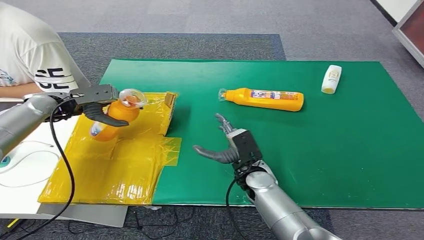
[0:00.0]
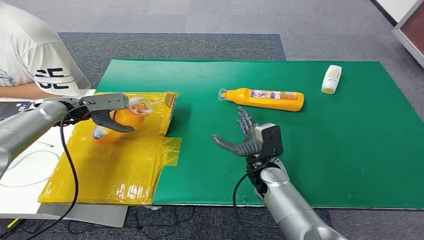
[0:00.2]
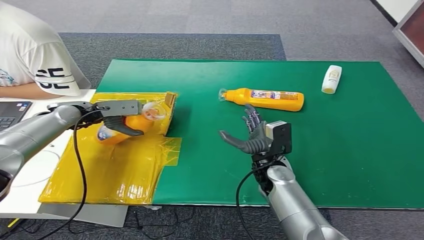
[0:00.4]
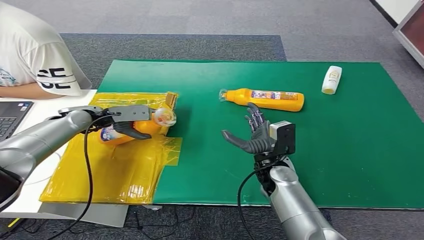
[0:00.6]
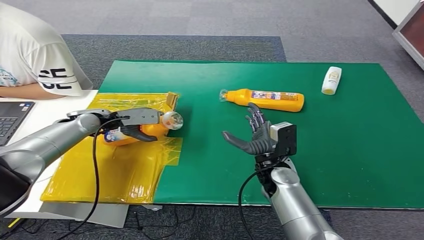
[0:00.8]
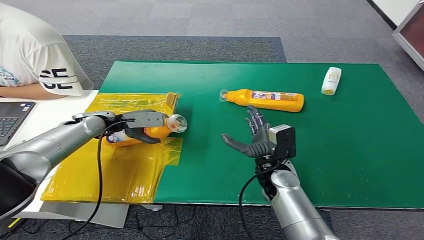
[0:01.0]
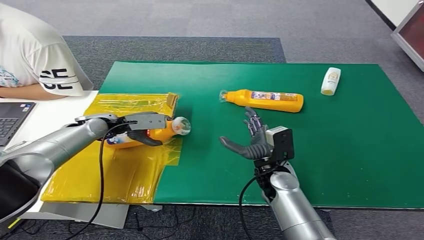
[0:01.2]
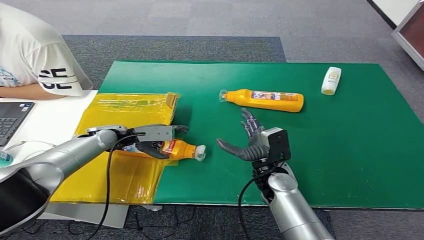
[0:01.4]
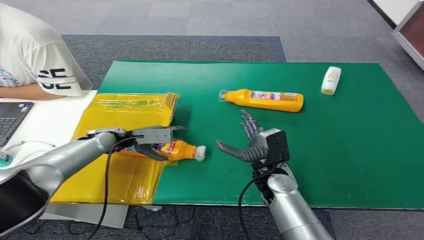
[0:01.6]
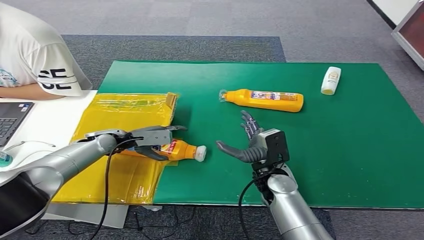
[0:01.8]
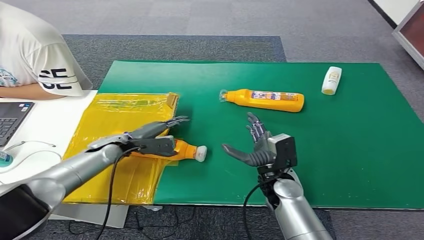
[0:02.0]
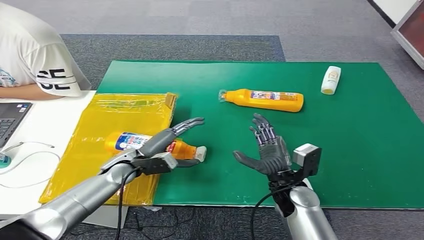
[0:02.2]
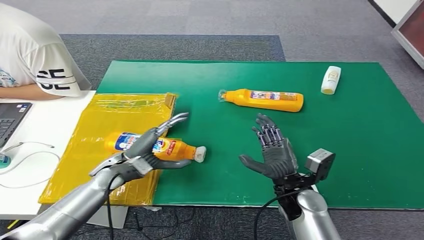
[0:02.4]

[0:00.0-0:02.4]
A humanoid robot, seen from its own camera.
Step, 0:00.0 to 0:02.4: Turn the bottle to the front side.
